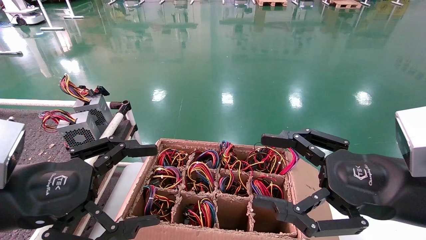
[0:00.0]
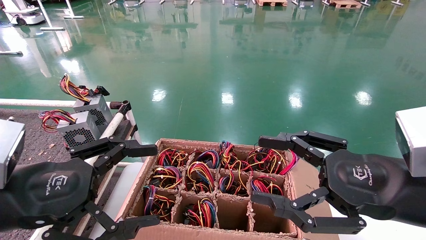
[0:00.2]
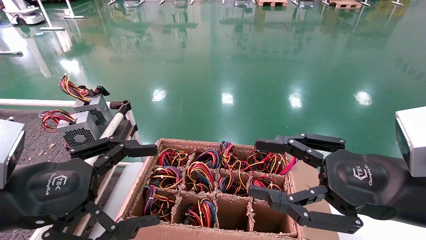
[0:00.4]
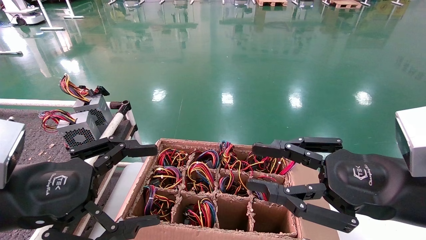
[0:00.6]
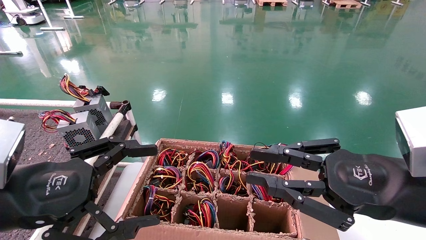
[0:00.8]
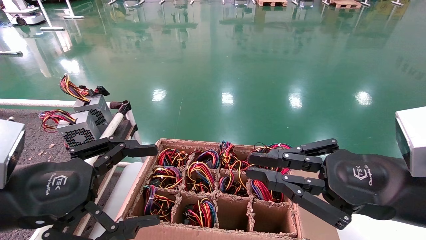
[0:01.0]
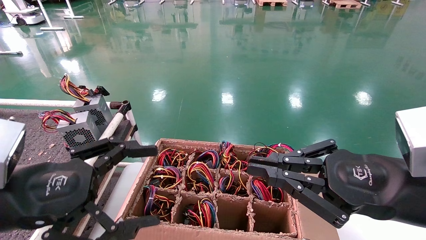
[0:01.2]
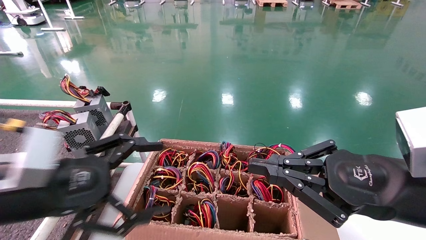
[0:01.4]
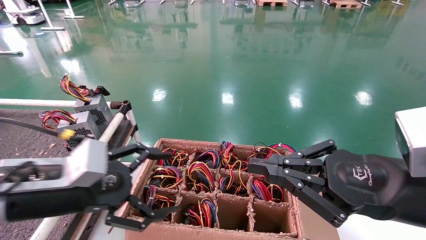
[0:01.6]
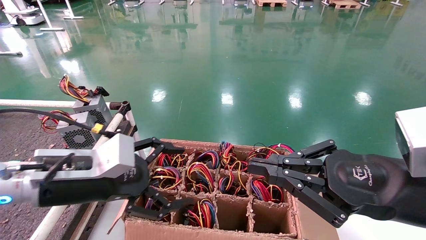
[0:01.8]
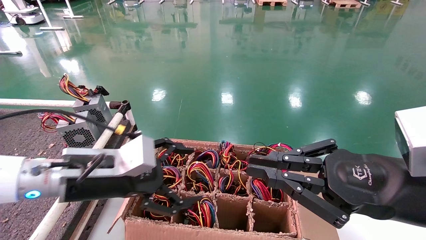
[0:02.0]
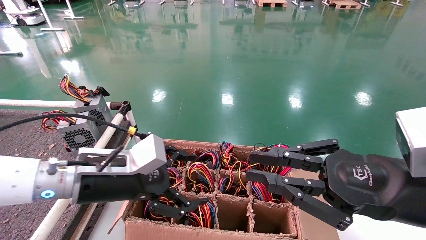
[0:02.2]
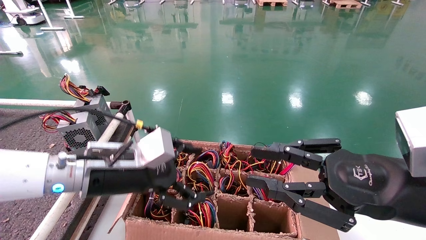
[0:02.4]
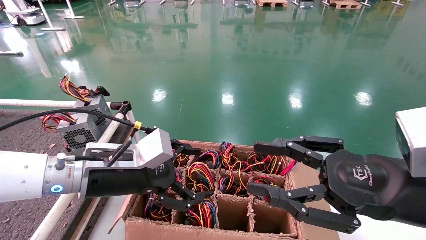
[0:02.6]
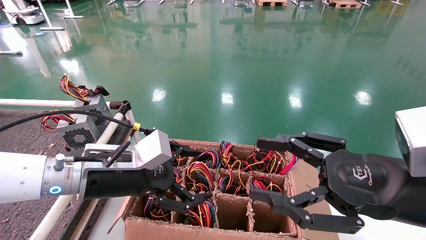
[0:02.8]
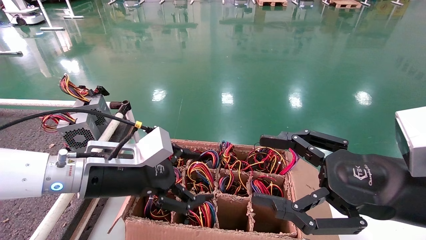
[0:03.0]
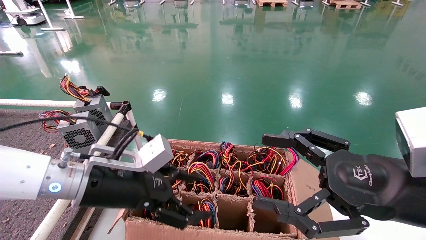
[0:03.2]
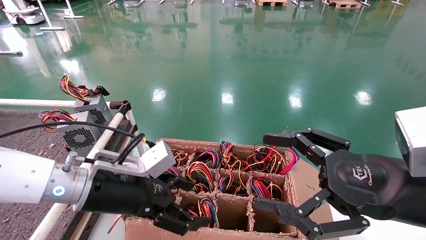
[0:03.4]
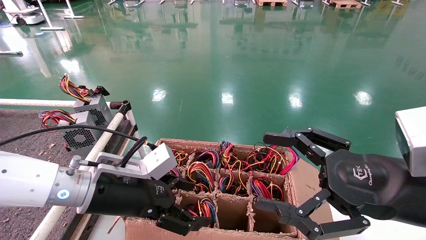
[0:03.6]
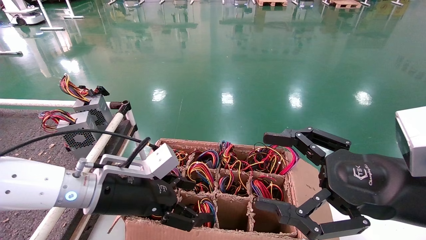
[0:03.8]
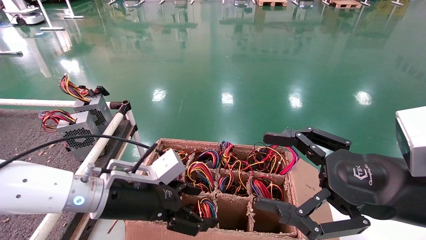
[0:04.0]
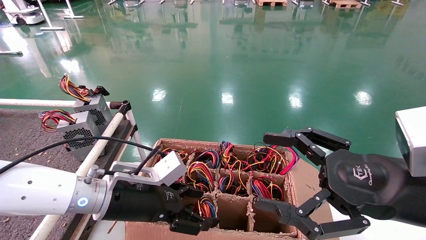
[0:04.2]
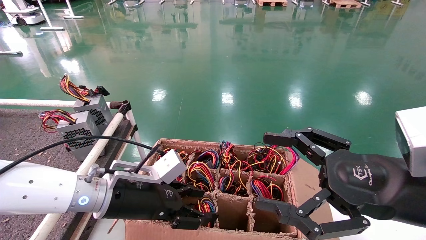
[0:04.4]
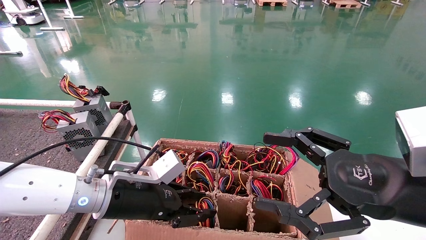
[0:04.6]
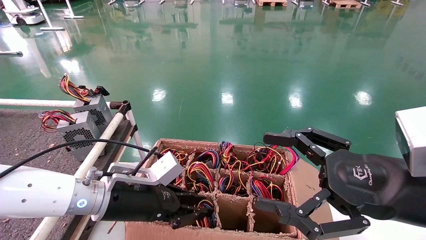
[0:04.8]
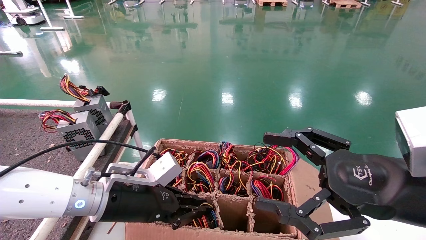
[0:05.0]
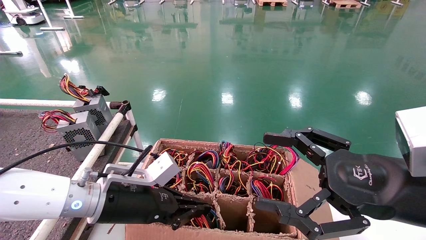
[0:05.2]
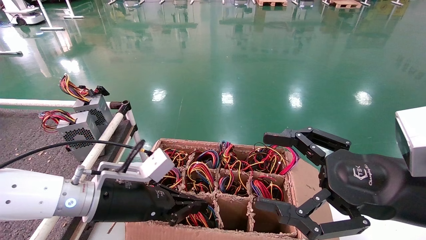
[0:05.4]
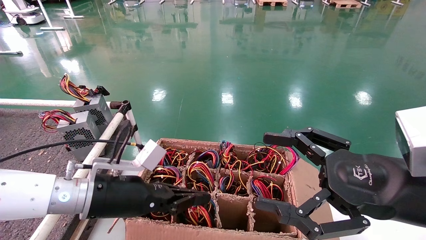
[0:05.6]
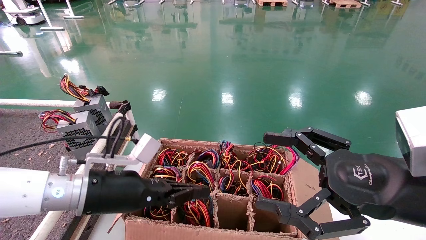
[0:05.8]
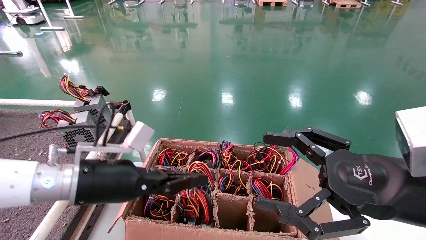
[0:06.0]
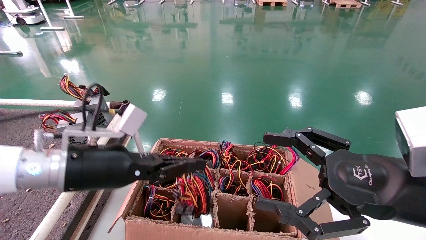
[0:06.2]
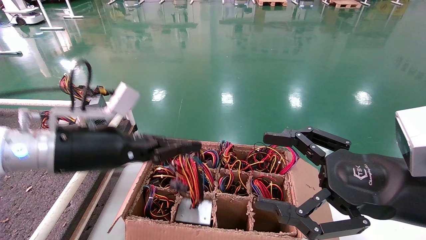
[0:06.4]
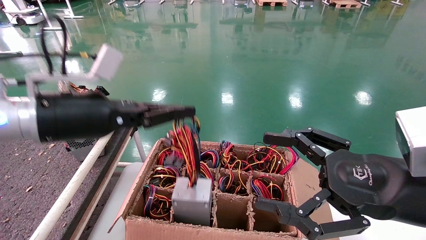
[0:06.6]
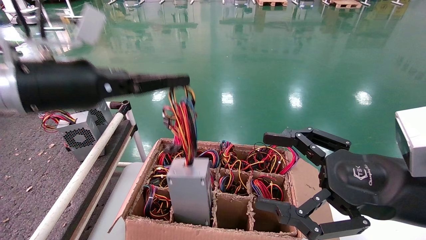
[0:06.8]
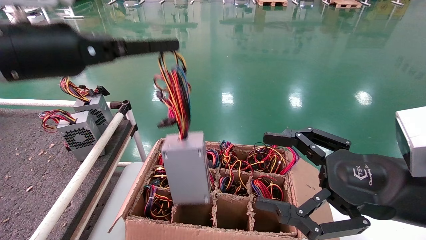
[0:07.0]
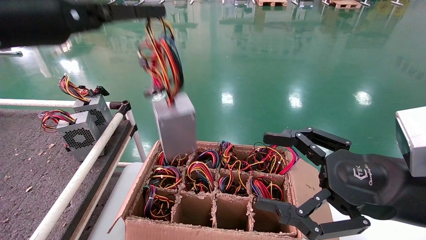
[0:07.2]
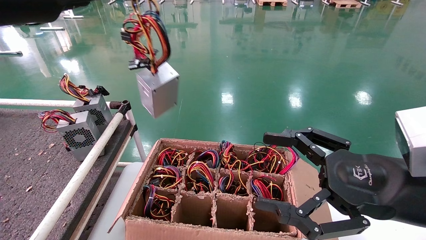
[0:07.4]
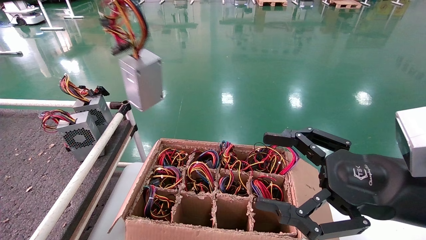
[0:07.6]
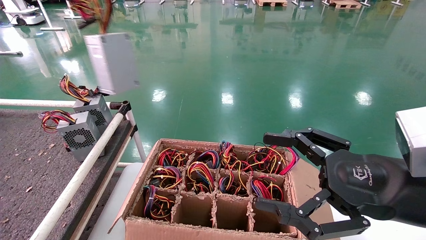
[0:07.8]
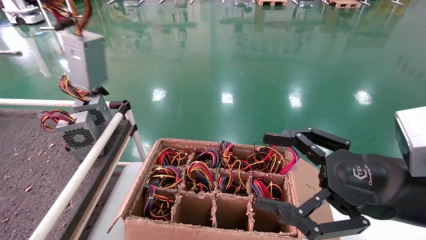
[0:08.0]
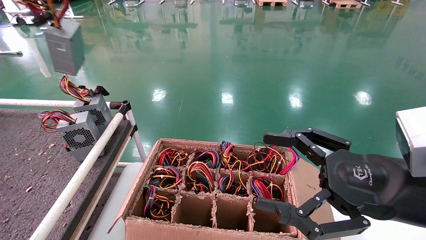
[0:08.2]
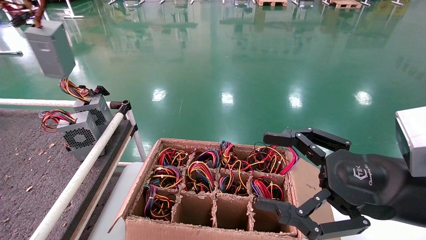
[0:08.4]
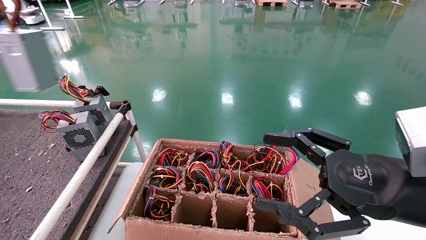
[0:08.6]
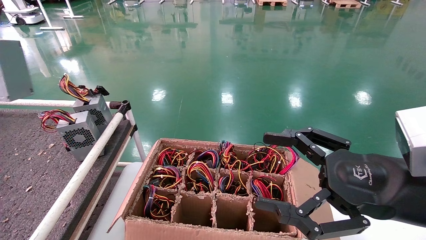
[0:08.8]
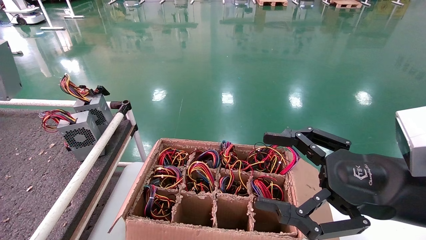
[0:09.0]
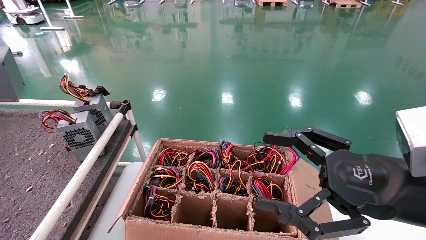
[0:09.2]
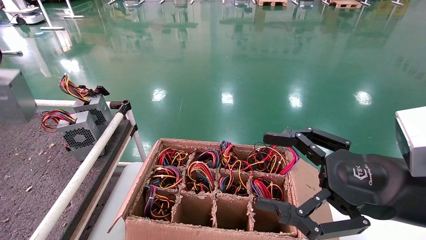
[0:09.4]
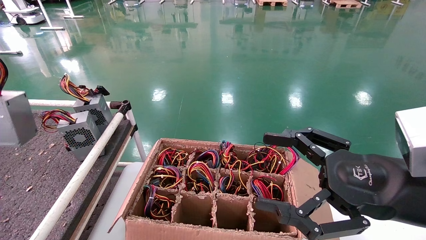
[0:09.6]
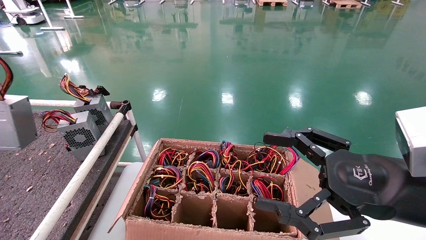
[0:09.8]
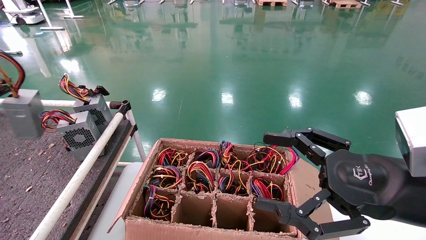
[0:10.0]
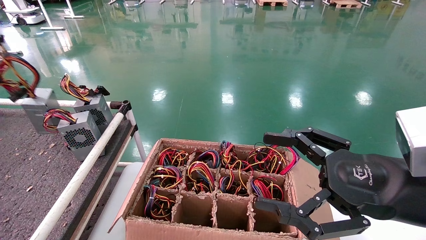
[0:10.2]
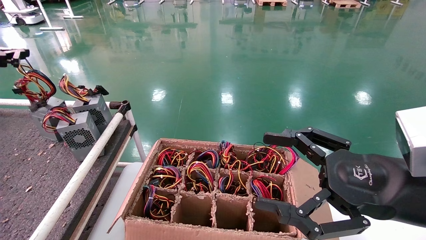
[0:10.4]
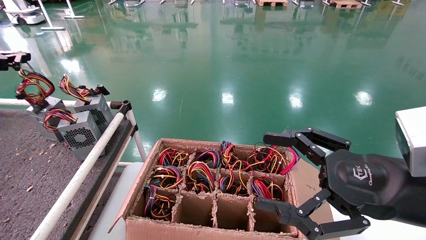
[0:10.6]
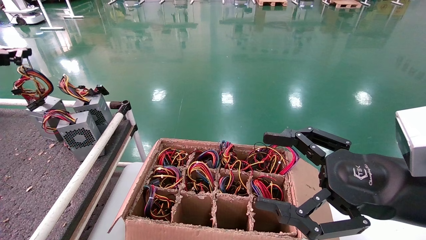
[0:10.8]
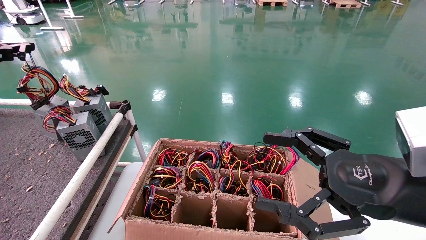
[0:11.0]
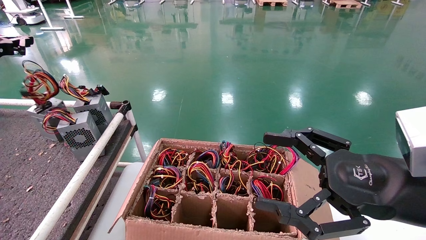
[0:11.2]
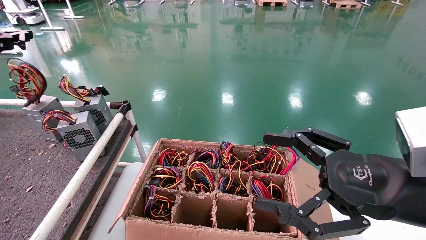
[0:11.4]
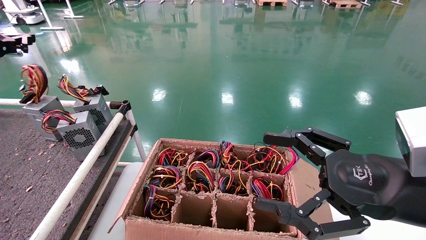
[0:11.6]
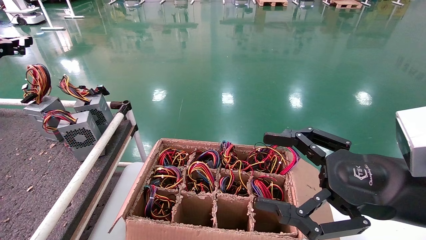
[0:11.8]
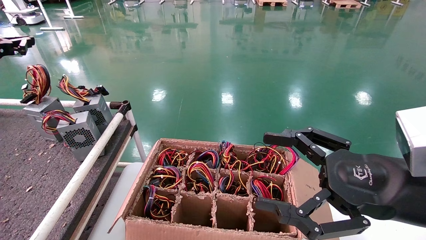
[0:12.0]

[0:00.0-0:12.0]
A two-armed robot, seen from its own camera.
Step, 0:01.4 to 0:04.8: Grab and lift the power supply from the large box.
0:00.0 to 0:01.6: The left gripper travels forward by approximately 5 cm. The right gripper closes up.
0:01.6 to 0:03.0: The left gripper goes roughly 5 cm to the right. Meanwhile the right gripper opens.
0:03.0 to 0:04.4: The grippers make only small movements.
0:04.4 to 0:06.0: The left gripper moves roughly 5 cm, and closes up.
0:06.0 to 0:07.6: The left gripper is displaced upward and to the left by about 30 cm.
0:07.6 to 0:09.0: The left gripper is displaced to the left by roughly 20 cm.
0:09.0 to 0:10.4: The left gripper moves downward and forward, roughly 15 cm.
0:10.4 to 0:12.0: There are only small adjustments of the grippers.

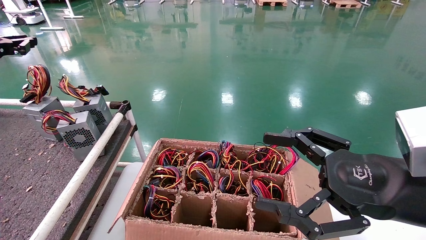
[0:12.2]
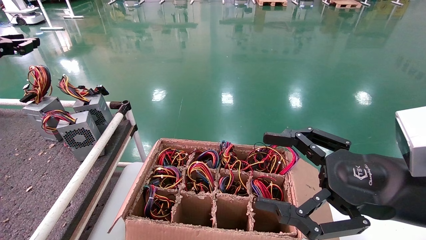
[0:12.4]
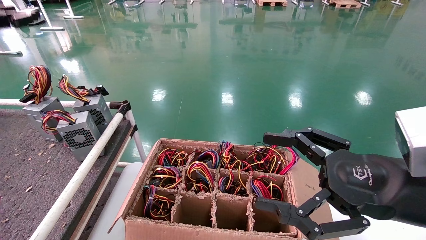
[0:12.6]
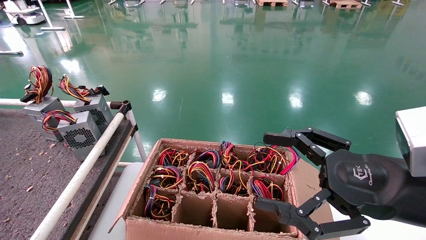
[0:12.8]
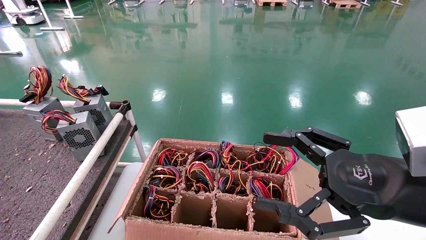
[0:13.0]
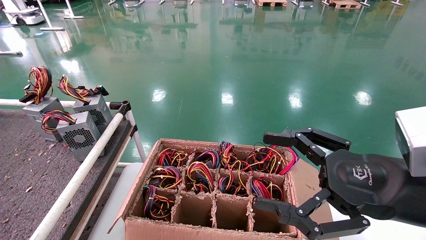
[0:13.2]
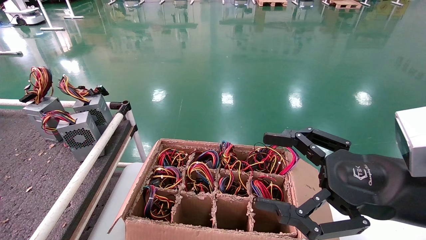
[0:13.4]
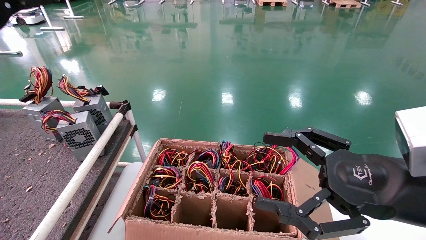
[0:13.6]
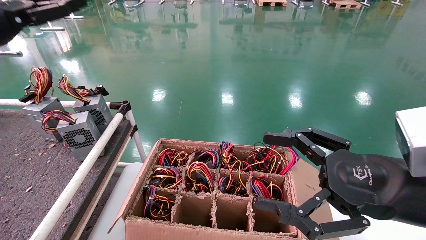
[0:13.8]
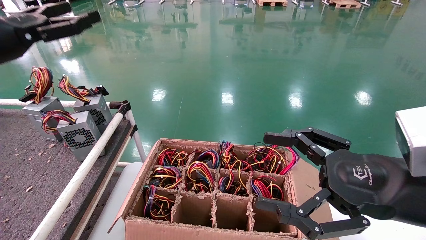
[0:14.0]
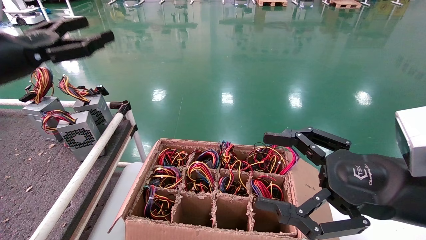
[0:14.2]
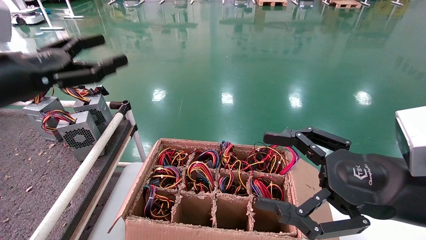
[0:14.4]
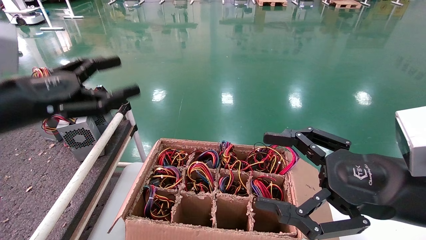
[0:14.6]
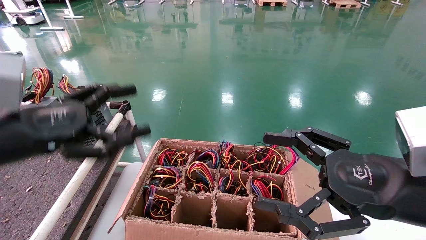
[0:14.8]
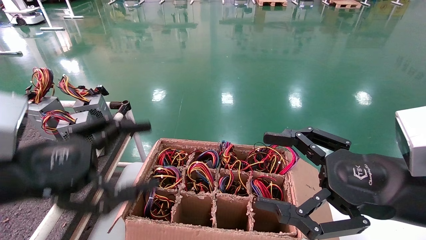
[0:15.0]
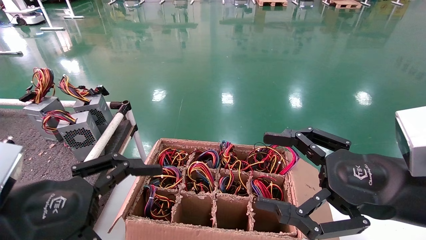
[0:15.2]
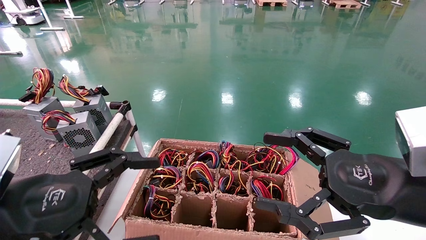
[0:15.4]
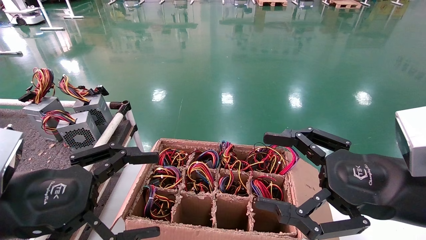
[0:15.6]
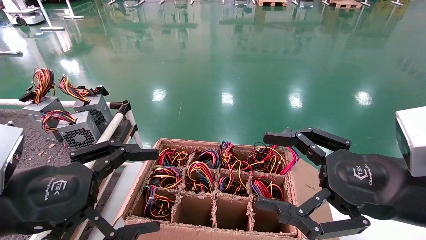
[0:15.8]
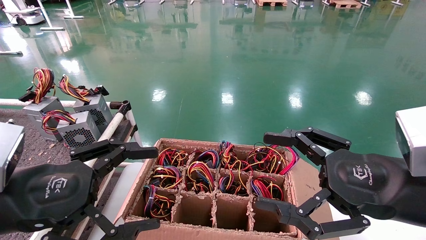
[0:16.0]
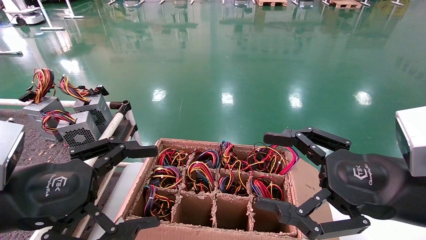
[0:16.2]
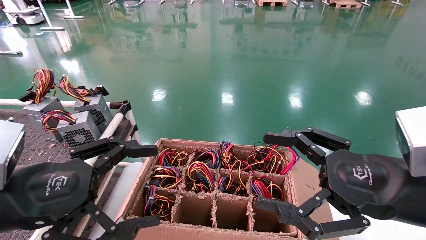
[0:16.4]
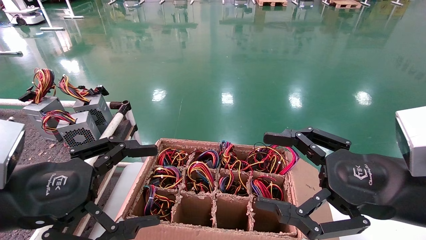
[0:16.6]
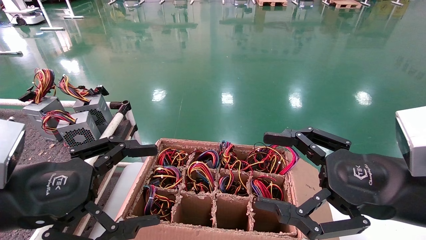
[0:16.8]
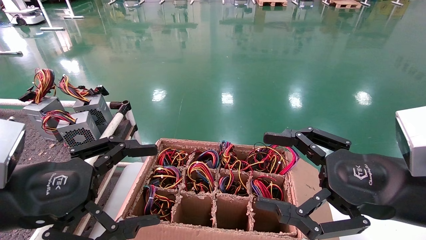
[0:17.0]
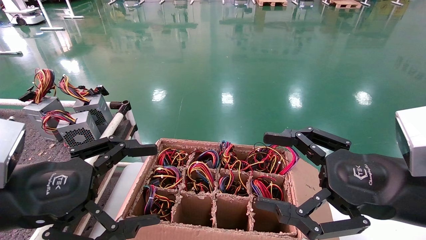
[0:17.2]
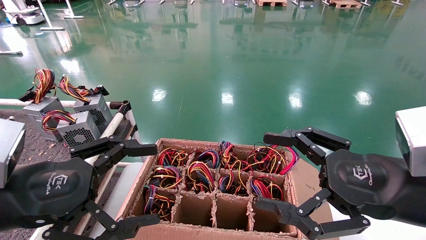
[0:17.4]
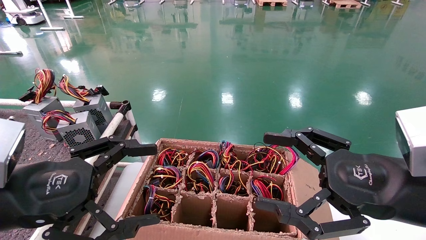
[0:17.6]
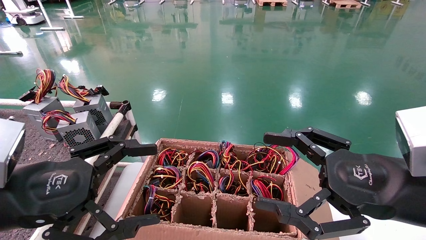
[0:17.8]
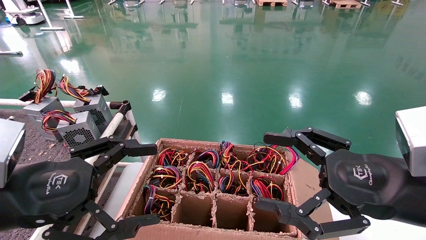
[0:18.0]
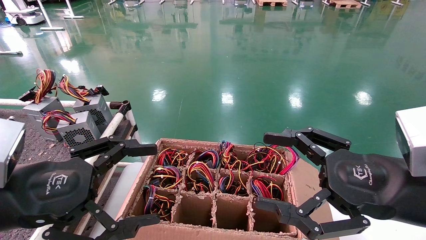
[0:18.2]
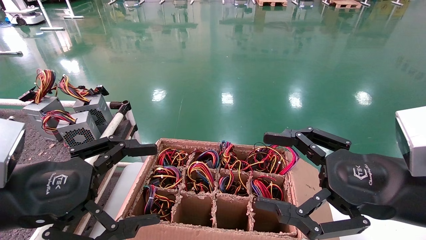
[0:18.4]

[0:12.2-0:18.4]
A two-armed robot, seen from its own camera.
0:12.2 to 0:13.8: The left gripper travels to the right and backward by approximately 10 cm, and opens up.
0:13.8 to 0:15.4: The left gripper shifts roughly 25 cm downward, backward and to the right.
0:15.4 to 0:18.4: The two grippers keep their place.
